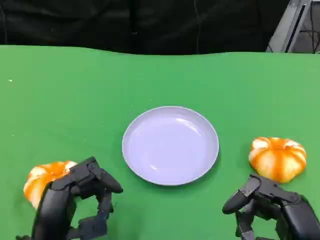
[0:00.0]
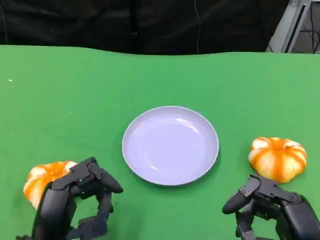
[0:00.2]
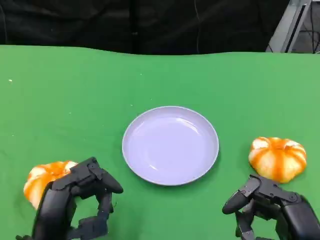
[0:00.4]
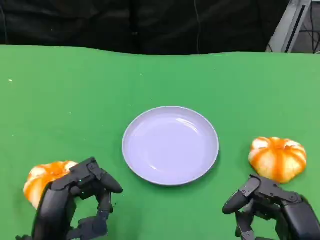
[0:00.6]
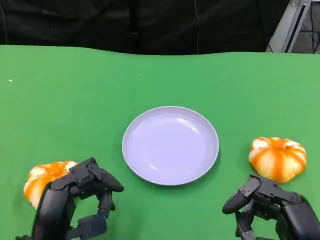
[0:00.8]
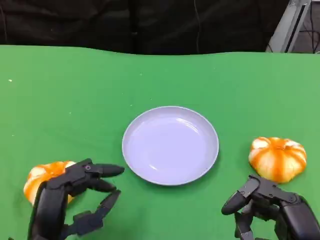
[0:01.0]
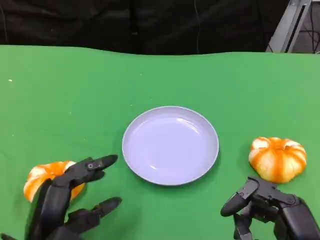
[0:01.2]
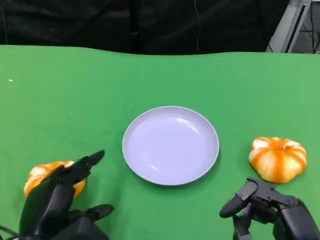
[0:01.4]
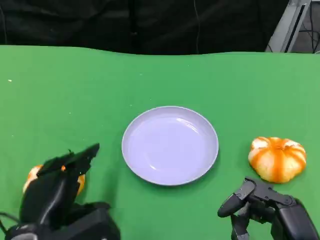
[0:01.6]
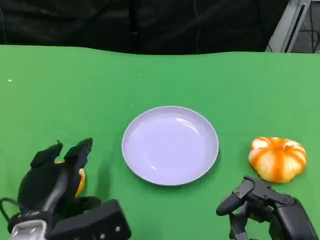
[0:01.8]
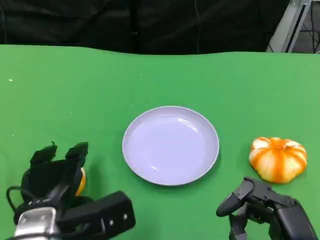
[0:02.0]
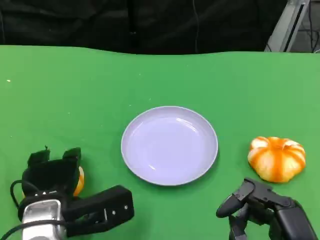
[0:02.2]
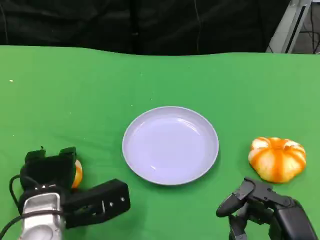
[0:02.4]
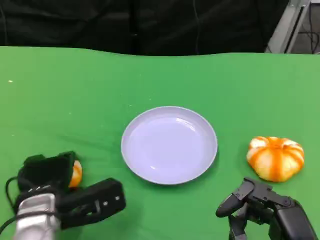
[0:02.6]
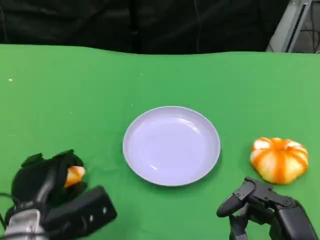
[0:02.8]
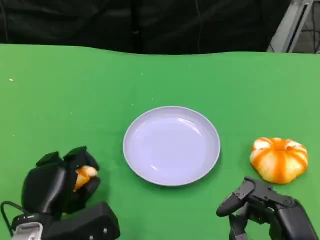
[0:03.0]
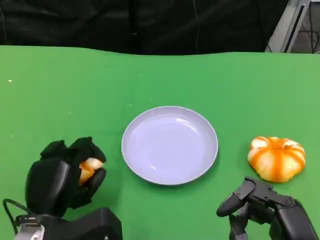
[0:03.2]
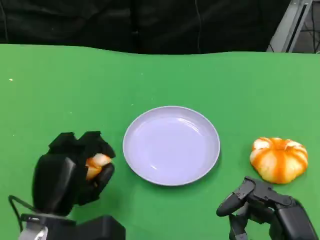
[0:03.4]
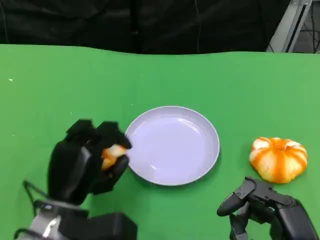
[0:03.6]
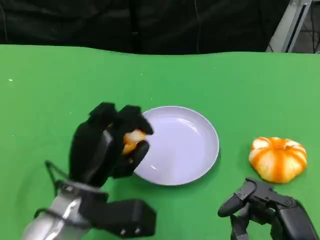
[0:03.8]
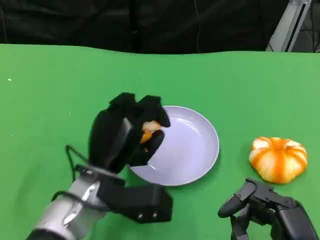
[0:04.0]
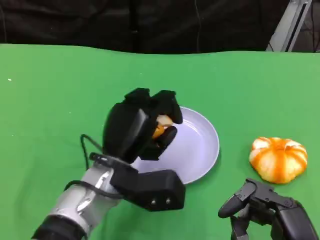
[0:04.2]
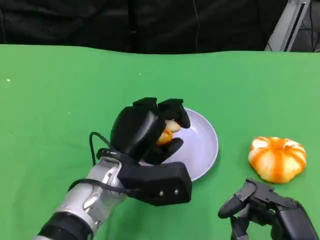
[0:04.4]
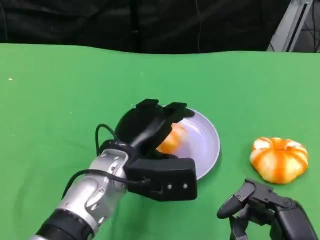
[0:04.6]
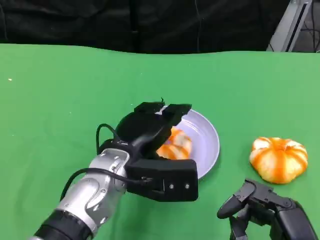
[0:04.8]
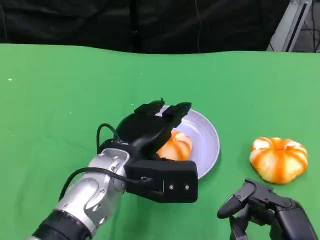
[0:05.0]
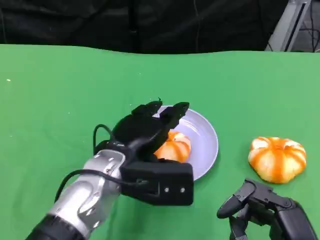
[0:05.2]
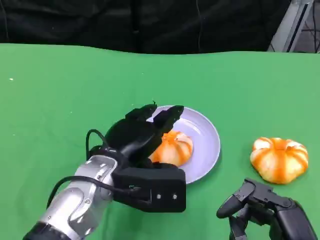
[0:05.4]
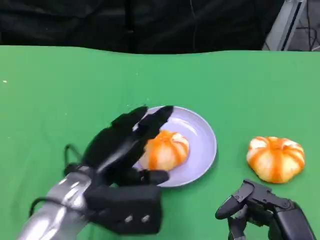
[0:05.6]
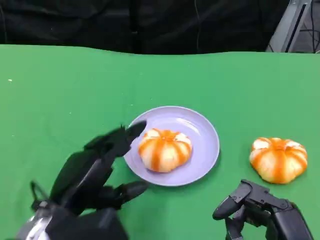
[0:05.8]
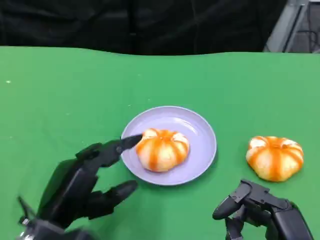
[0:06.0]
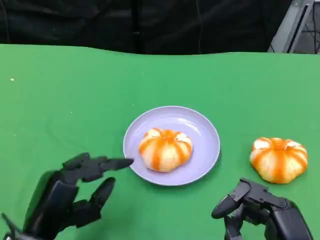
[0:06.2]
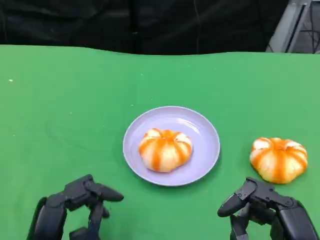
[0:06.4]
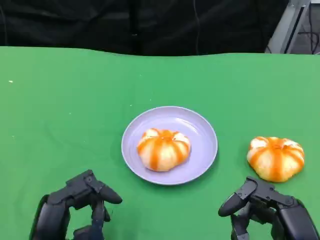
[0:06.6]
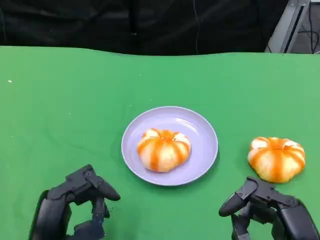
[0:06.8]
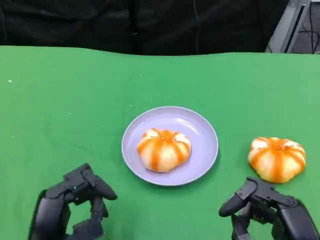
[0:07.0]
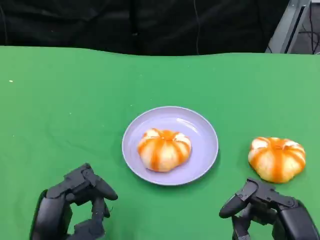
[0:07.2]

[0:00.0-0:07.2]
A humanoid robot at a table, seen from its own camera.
Task of the whole recording: Grasp the bread from the table and place it into the plate.
1.4 to 2.8 s: The left hand ends up approximately 5 cm from where it was.
2.8 to 4.4 s: The left hand heads to the right, forward and upward, covering roughly 15 cm.
4.4 to 5.8 s: The left hand goes some 10 cm to the left and backward.
5.8 to 7.2 s: The left hand changes place by about 5 cm.

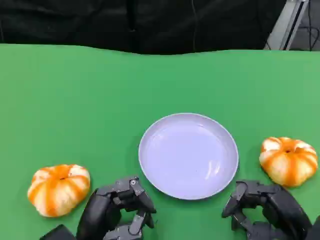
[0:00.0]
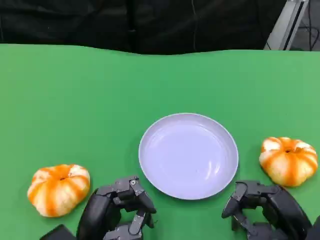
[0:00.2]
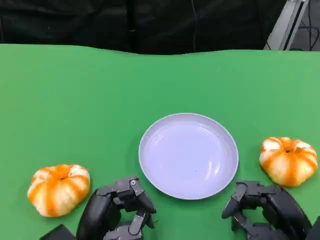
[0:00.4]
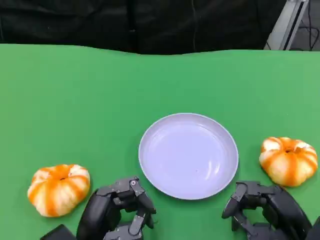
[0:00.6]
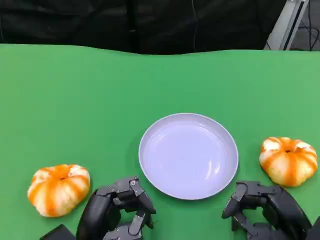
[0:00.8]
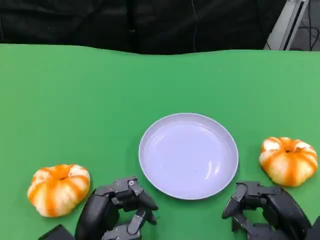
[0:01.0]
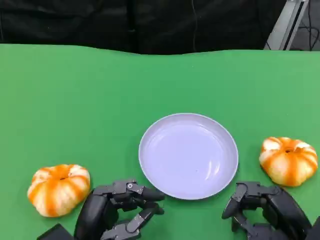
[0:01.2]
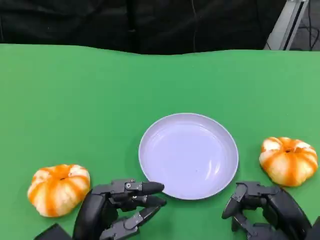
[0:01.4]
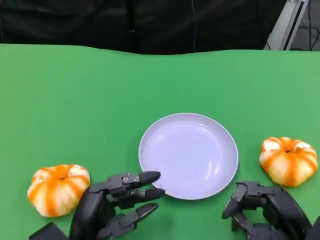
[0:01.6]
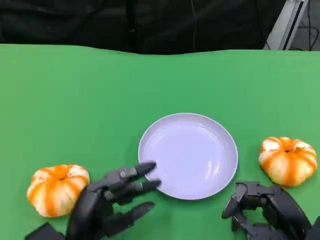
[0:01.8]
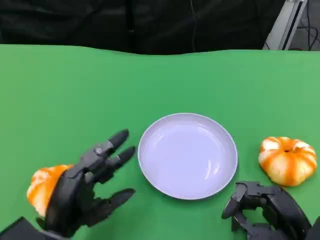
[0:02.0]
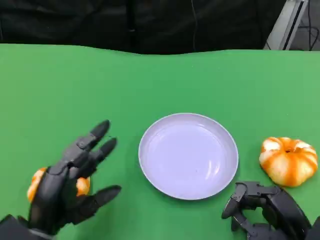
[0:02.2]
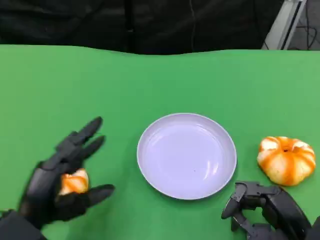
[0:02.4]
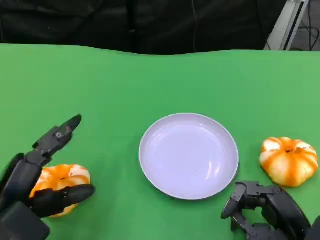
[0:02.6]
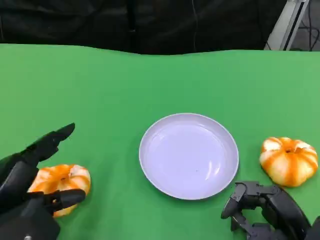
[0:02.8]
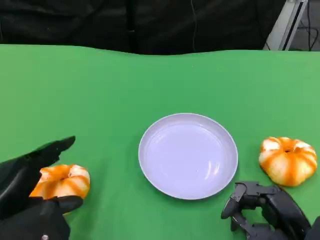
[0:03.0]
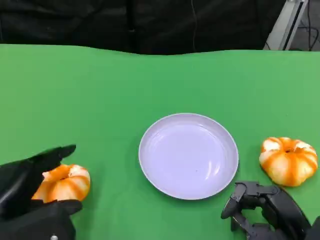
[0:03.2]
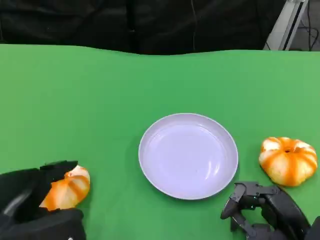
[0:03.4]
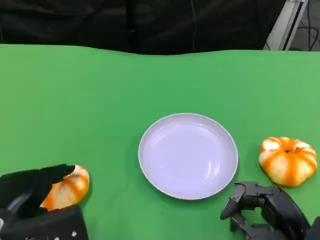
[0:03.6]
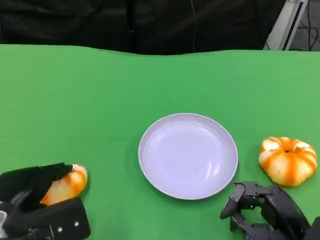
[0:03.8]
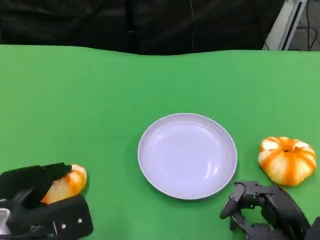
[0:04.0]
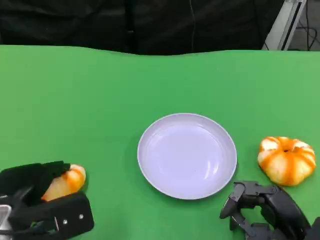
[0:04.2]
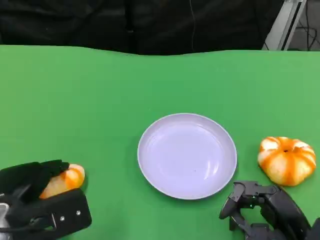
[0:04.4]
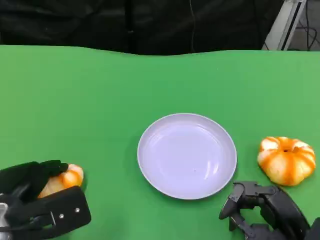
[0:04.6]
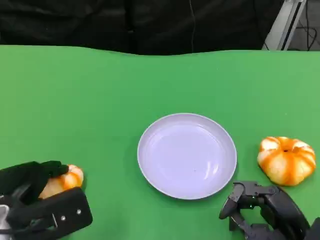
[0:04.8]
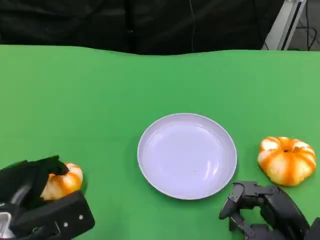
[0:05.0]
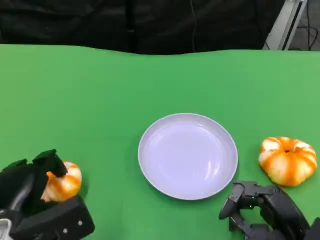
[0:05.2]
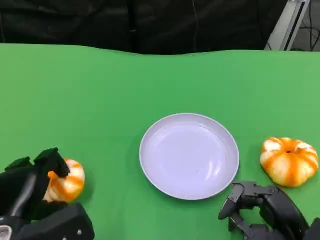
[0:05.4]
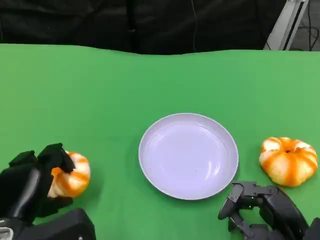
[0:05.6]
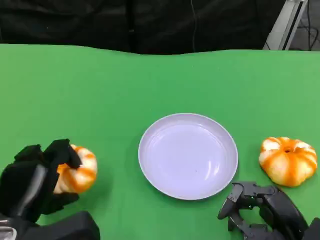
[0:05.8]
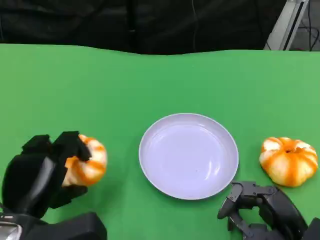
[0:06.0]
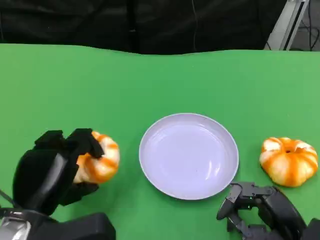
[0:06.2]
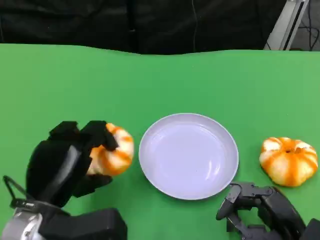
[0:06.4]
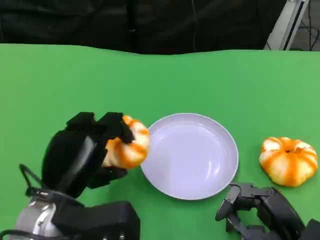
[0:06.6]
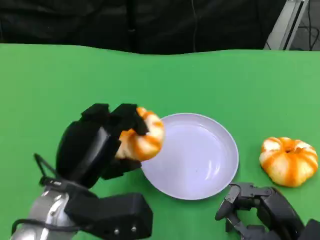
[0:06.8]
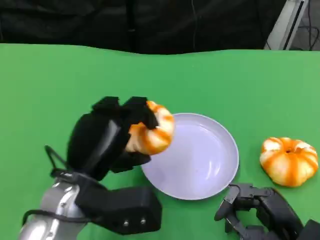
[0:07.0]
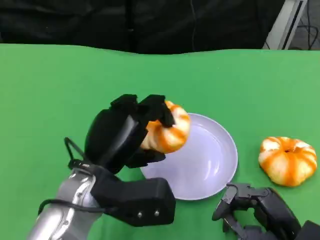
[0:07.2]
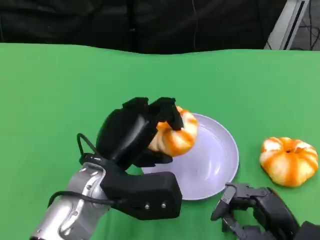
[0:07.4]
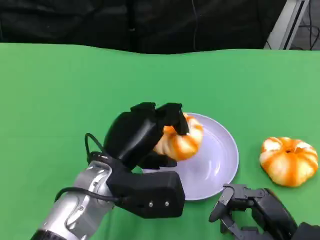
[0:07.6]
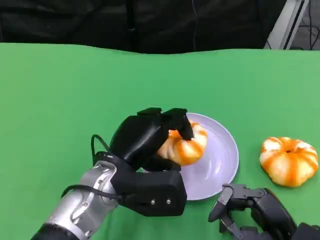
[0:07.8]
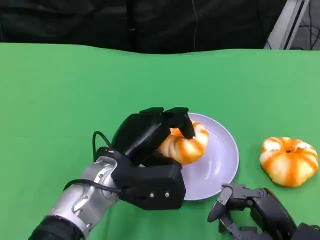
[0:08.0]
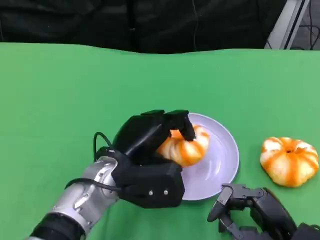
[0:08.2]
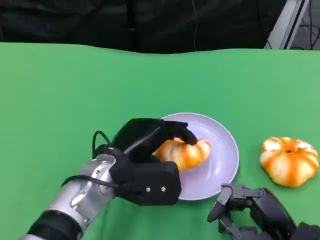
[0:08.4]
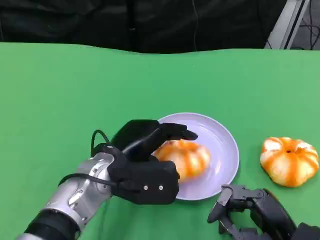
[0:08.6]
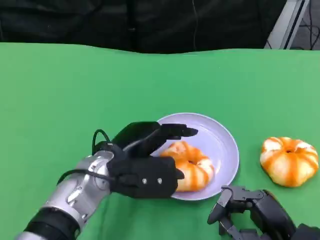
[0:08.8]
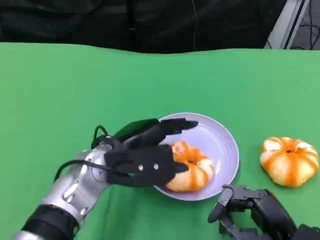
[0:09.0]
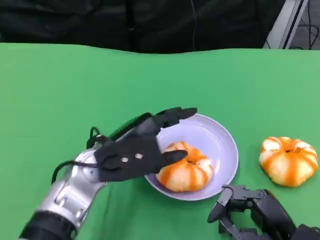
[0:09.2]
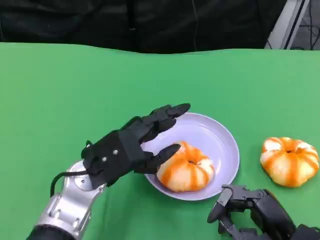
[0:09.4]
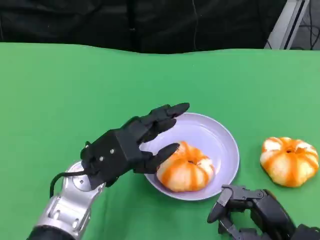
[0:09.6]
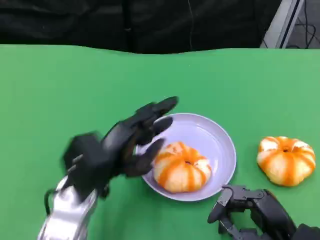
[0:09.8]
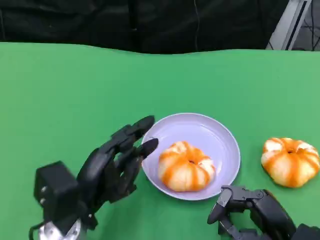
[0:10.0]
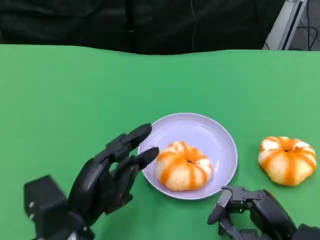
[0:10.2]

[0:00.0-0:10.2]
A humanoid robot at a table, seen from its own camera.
Task of the whole recording: Grasp the bread from the table and place it into the plate.
0.0 to 1.4 s: Both hands stay about where they are.
1.4 to 3.0 s: The left hand moves to the left and upward, some 15 cm.
5.8 to 7.2 s: The left hand is displaced to the right, forward and upward by about 15 cm.
8.8 to 10.2 s: The left hand goes roughly 10 cm backward and to the left.

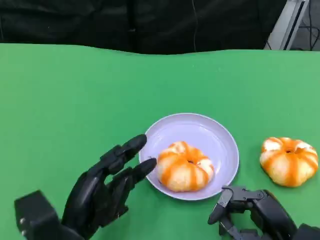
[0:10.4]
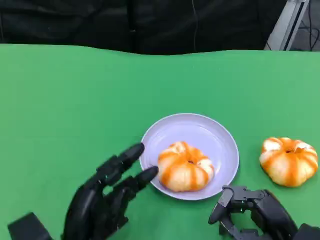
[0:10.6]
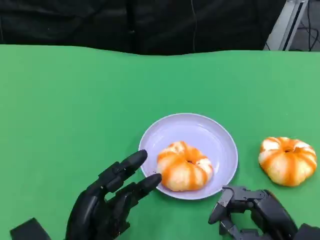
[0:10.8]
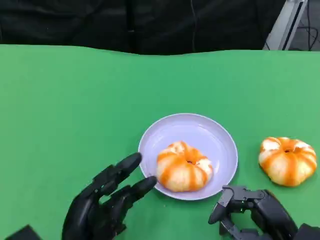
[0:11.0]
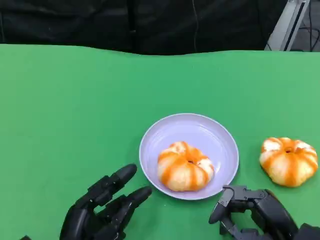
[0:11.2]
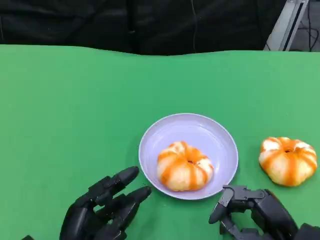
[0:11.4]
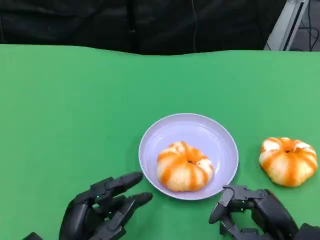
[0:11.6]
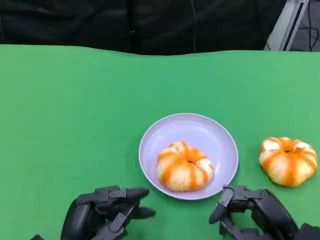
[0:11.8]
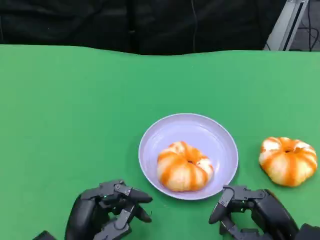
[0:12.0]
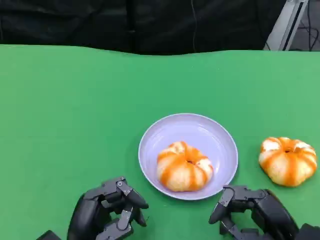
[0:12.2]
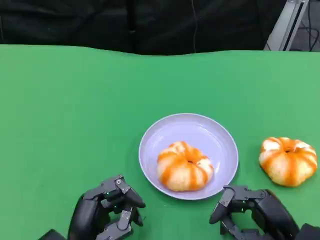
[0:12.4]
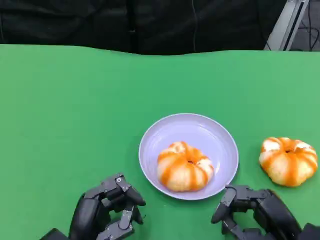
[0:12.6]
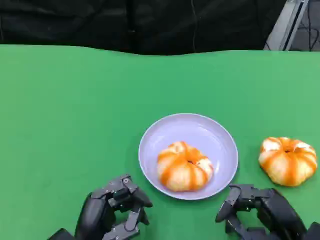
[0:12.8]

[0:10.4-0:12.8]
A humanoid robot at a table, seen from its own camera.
Task of the whole recording: Grasp the bread from the table and place it into the plate.
10.4 to 12.8 s: The hands make only small movements.

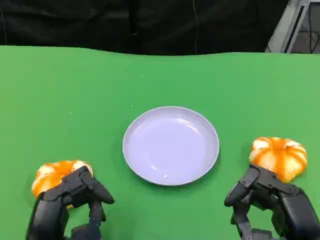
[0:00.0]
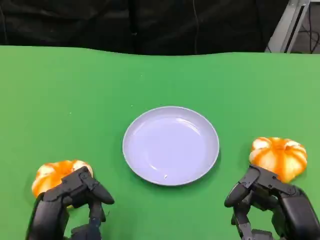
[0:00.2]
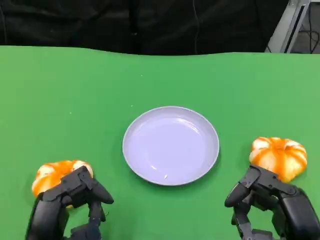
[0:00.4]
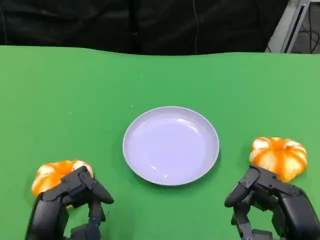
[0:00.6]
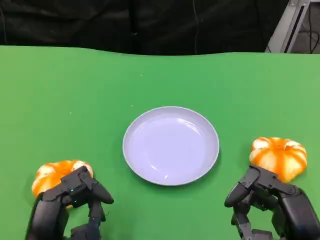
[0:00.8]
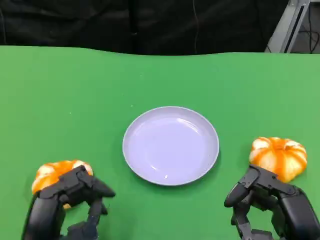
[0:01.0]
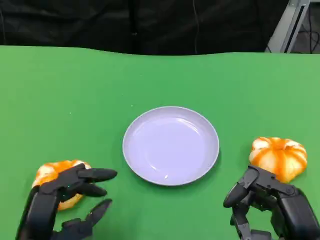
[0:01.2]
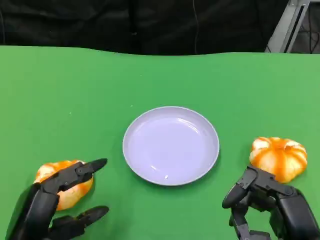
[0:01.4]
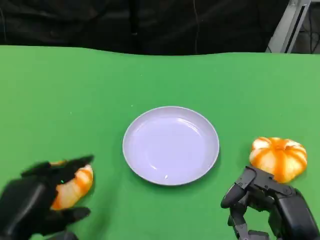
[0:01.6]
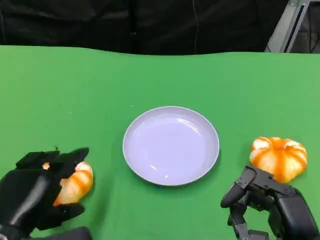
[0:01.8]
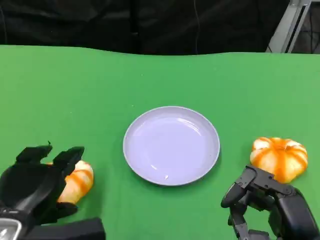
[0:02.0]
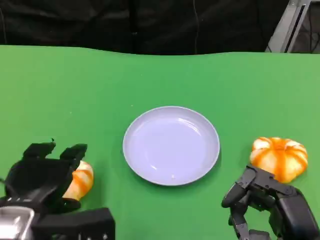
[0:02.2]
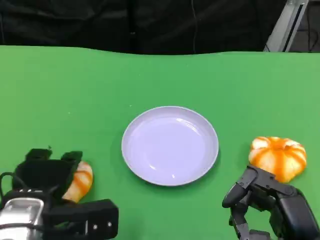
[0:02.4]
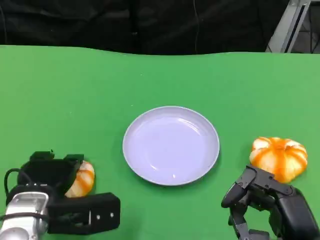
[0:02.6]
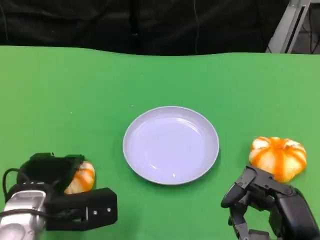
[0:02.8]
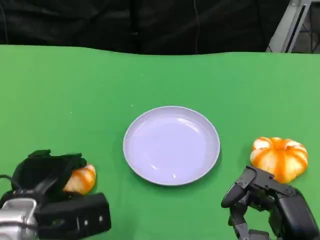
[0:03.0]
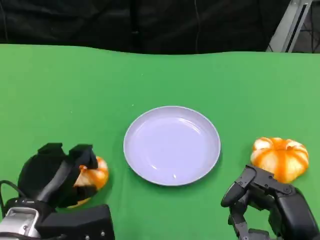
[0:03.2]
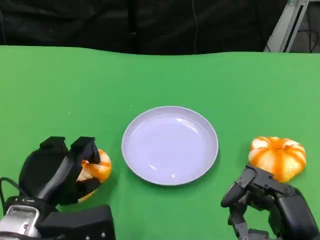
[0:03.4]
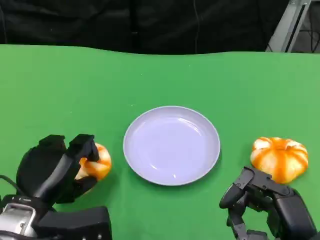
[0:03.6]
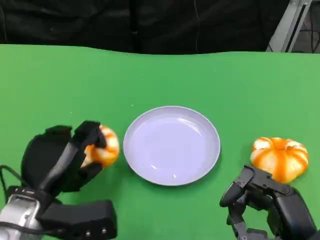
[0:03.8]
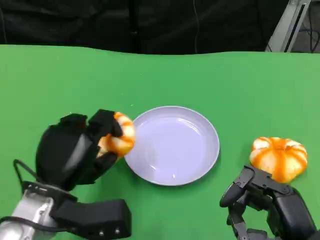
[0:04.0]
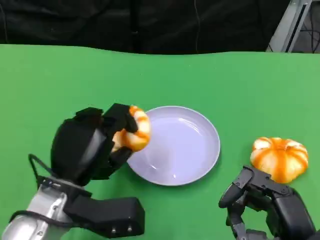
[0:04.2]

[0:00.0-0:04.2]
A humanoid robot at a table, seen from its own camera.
Task of the whole recording: Grasp the bread from the table and place it into the plate.
1.4 to 2.8 s: The left hand goes approximately 10 cm forward.
2.8 to 4.2 s: The left hand ends up approximately 5 cm from where it was.
